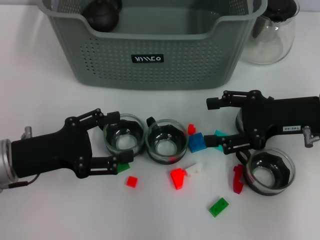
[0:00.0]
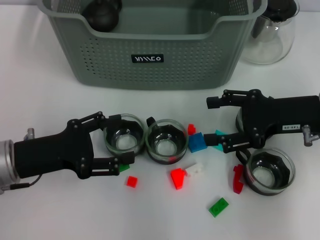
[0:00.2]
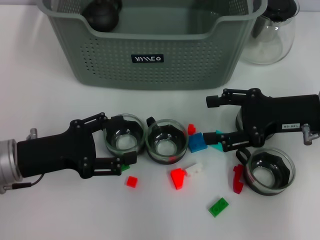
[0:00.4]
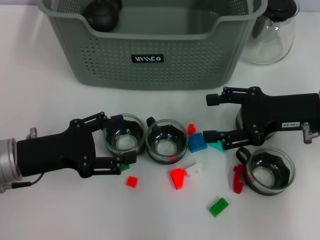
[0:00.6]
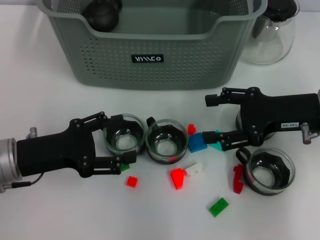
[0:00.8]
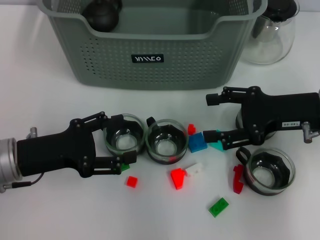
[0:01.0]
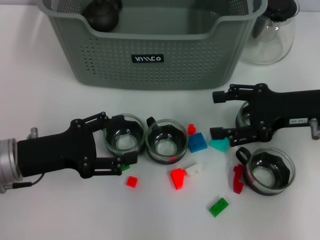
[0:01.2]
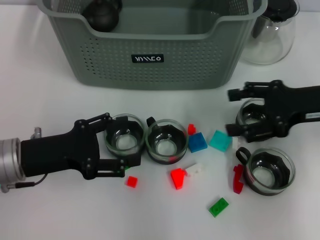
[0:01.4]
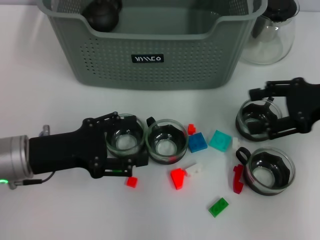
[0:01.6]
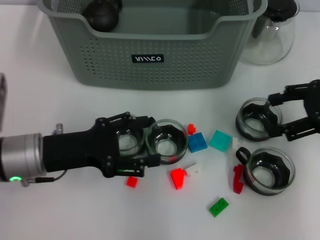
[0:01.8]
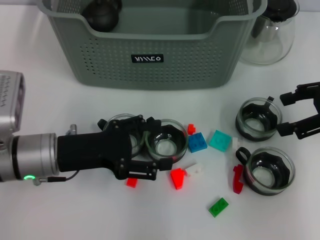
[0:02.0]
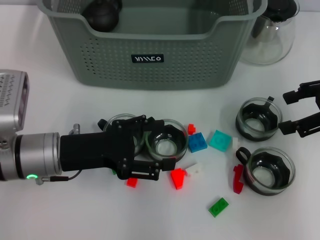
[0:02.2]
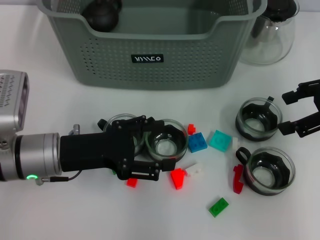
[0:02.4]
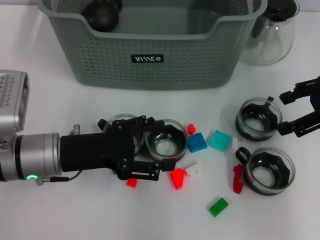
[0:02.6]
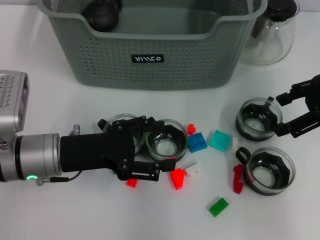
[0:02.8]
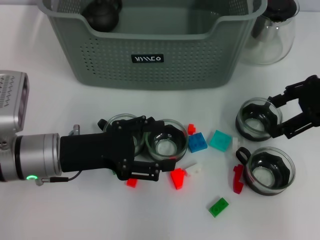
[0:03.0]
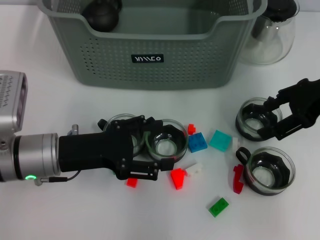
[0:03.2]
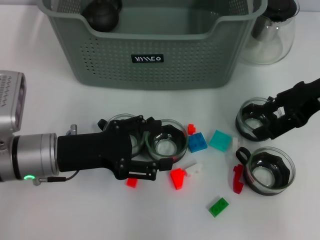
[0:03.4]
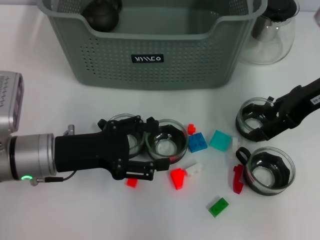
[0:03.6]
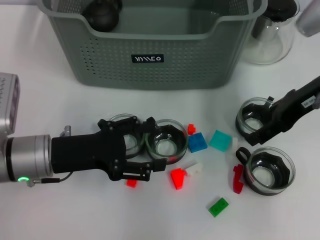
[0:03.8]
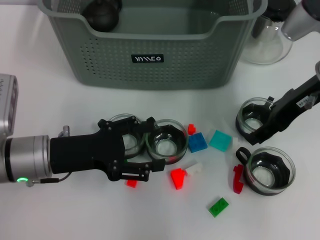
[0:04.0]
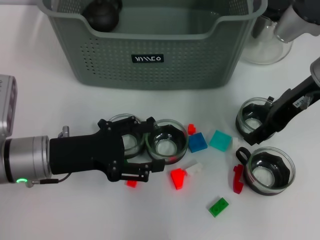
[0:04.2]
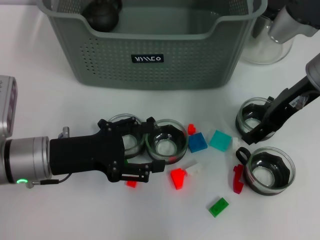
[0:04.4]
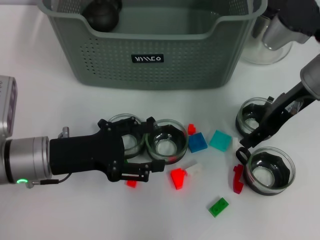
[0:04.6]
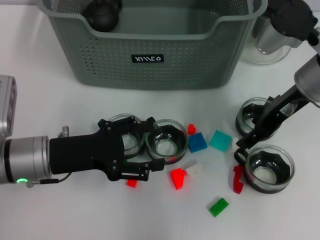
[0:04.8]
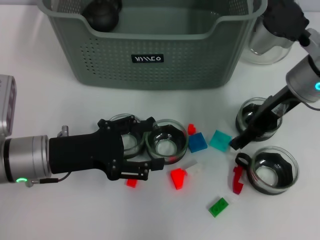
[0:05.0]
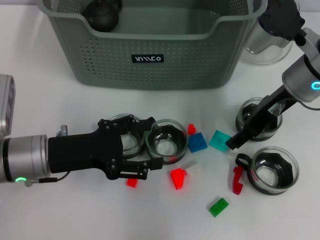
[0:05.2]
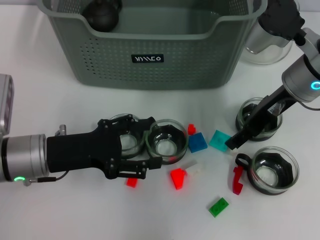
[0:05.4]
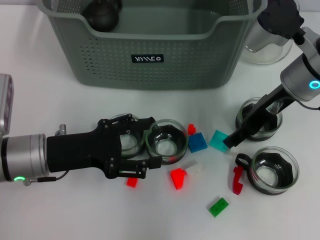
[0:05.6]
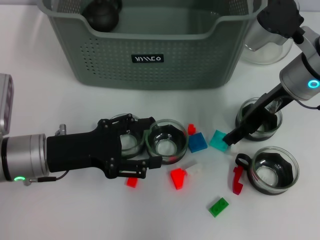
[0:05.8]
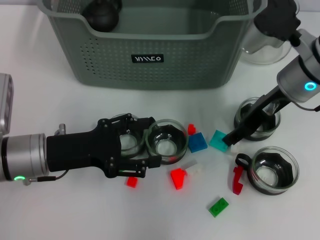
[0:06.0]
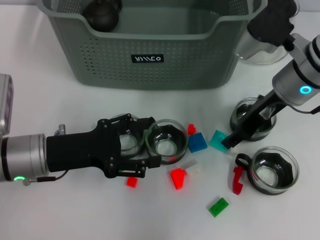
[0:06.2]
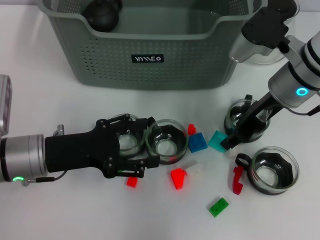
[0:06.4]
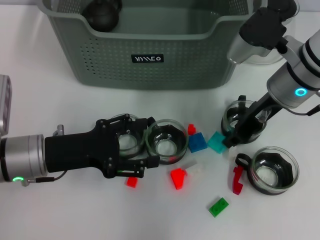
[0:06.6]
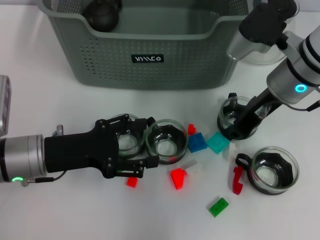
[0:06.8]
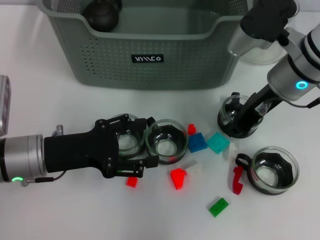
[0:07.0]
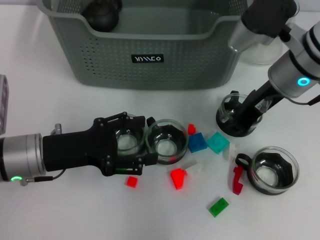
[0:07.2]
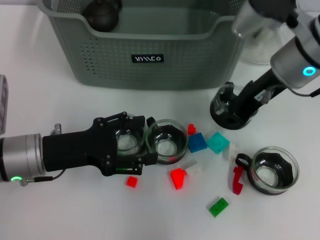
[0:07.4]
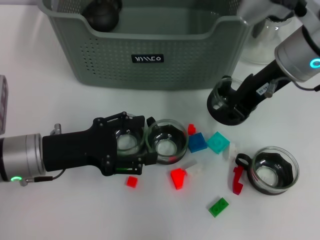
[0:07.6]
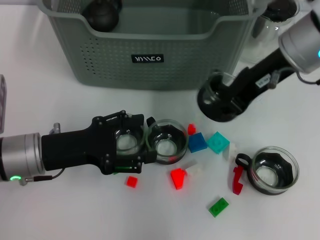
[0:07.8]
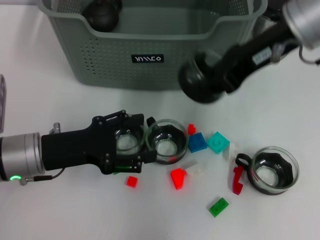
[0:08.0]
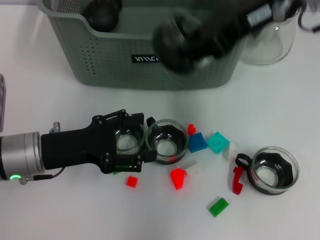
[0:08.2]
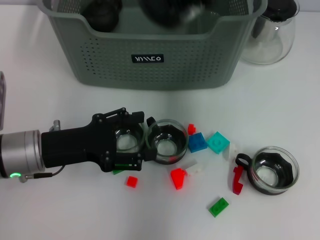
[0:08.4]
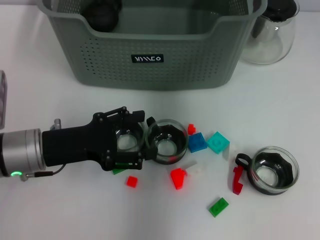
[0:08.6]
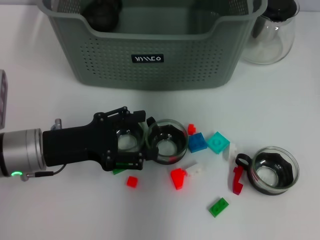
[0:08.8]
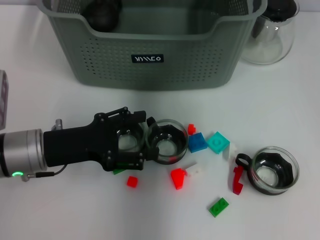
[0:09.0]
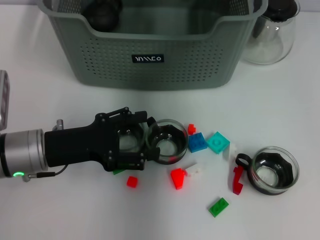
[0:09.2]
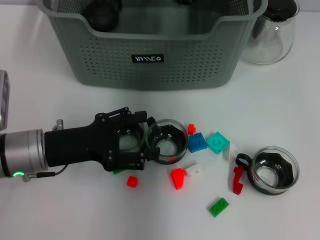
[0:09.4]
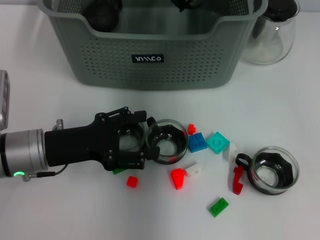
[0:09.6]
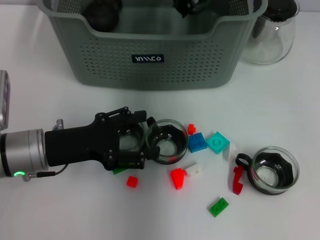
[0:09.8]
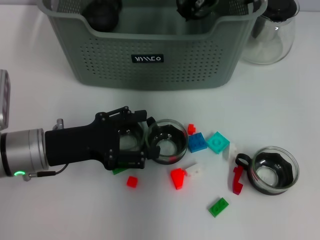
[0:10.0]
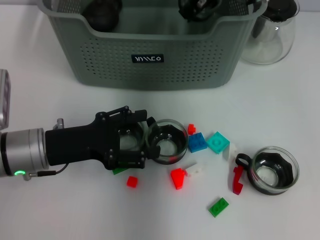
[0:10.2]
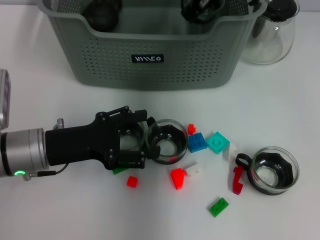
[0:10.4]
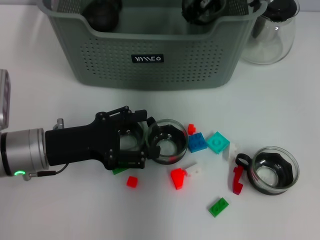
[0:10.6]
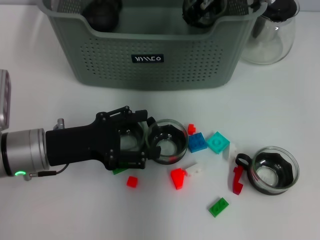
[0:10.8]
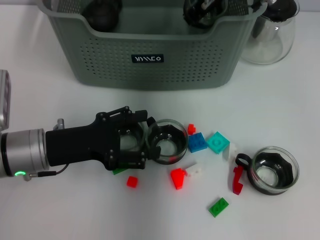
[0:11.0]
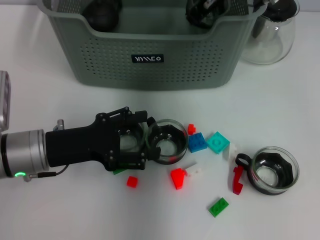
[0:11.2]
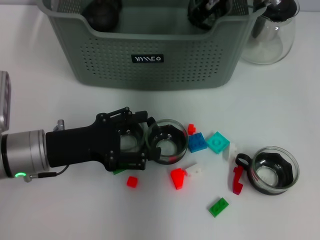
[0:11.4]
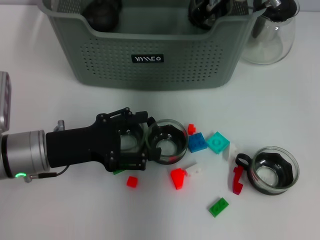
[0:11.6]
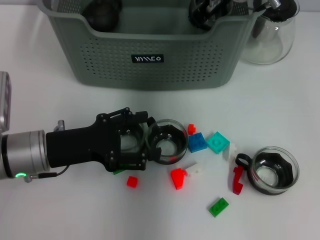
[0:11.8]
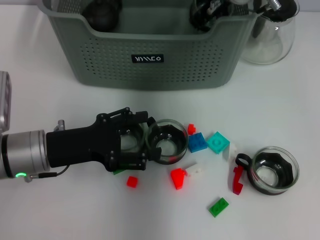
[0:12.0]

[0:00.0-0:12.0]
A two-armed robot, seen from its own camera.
Task of the whole recording: pick up the teacup on the table and place it into the storage bin, pick up the block on the table and place it into the storage bin.
Step, 0:00.0 to 0:06.8: Grasp the cup with right gripper.
0:00.0 to 0:01.6: The right gripper ends up roughly 5 cm from where it was.
0:03.0 to 0:04.4: The right gripper is displaced to the left by roughly 5 cm.
0:04.4 to 0:06.0: The grippers move only a little.
0:06.0 to 0:07.6: The right gripper moves upward, approximately 5 cm, and closes.
0:07.6 to 0:09.0: The right gripper shifts about 15 cm forward, upward and to the left.
0:09.0 to 0:10.4: The right gripper moves downward, roughly 5 cm.
0:10.4 to 0:12.0: The grippers stay close to where they were, moving slightly.

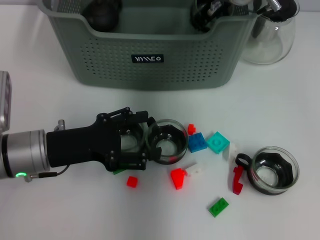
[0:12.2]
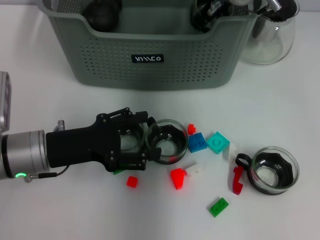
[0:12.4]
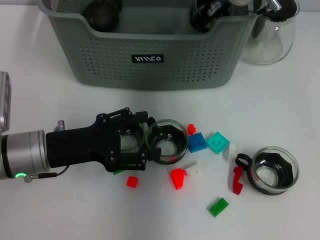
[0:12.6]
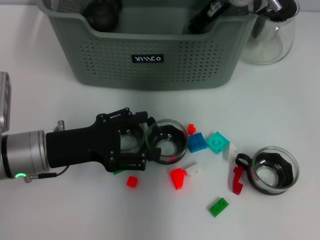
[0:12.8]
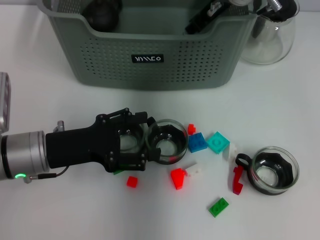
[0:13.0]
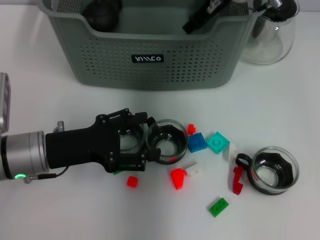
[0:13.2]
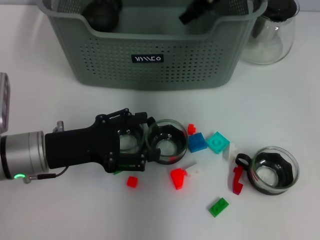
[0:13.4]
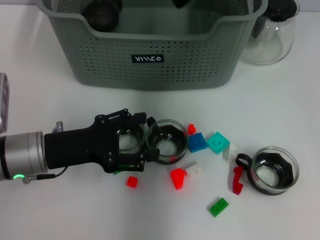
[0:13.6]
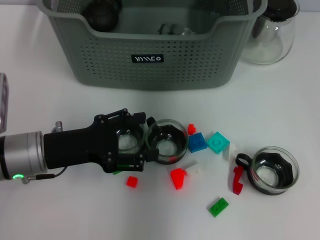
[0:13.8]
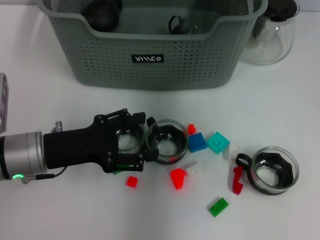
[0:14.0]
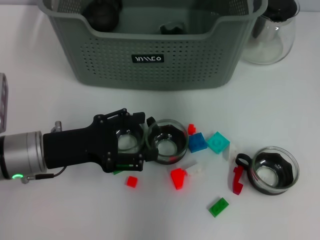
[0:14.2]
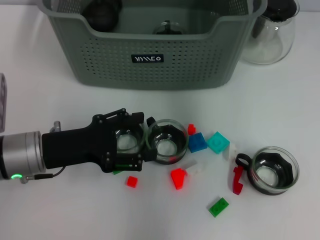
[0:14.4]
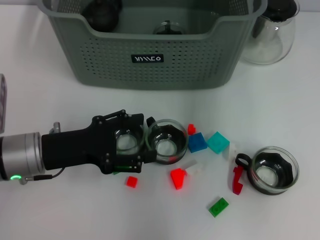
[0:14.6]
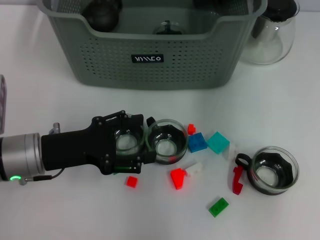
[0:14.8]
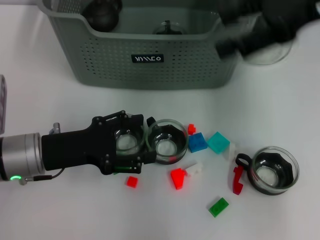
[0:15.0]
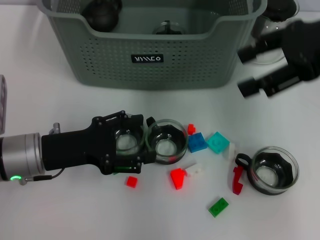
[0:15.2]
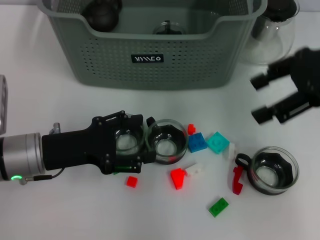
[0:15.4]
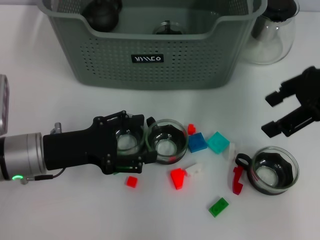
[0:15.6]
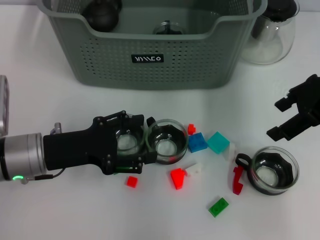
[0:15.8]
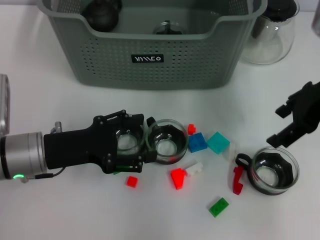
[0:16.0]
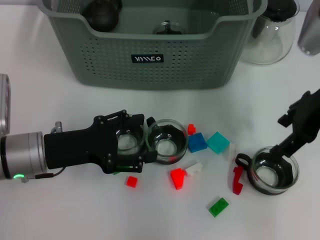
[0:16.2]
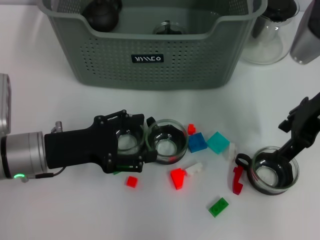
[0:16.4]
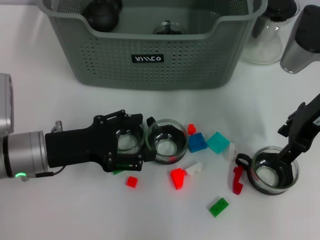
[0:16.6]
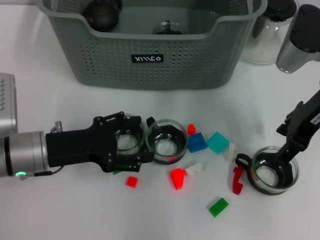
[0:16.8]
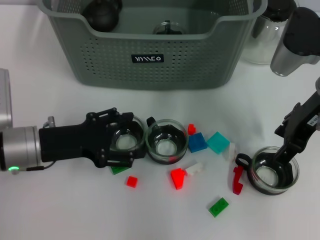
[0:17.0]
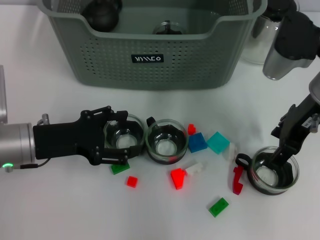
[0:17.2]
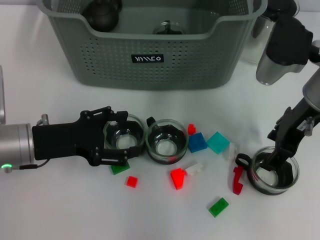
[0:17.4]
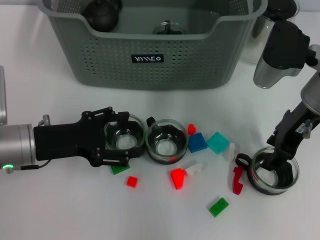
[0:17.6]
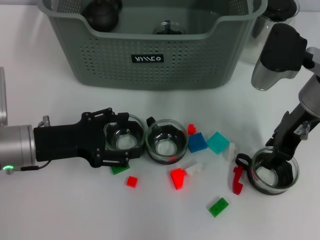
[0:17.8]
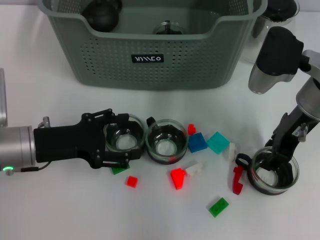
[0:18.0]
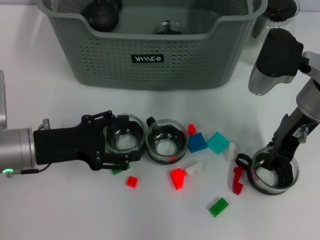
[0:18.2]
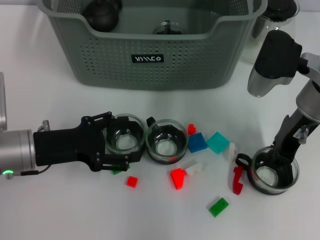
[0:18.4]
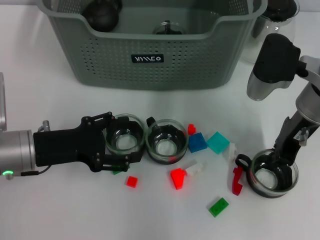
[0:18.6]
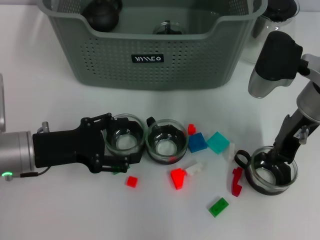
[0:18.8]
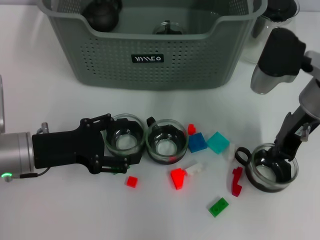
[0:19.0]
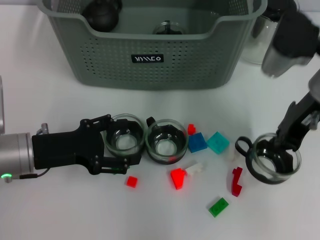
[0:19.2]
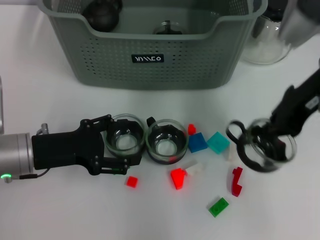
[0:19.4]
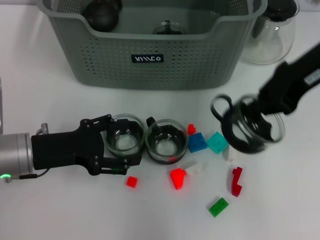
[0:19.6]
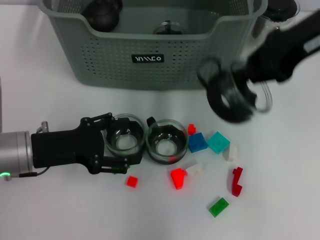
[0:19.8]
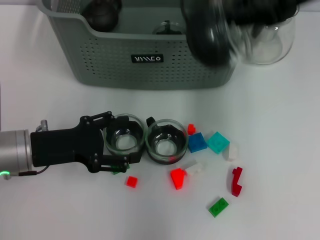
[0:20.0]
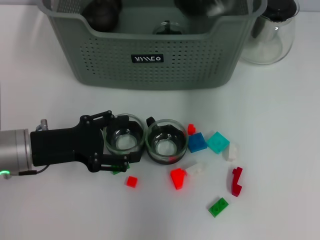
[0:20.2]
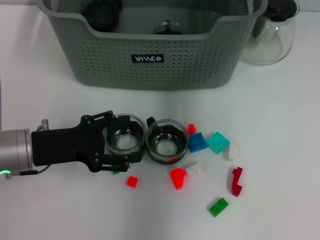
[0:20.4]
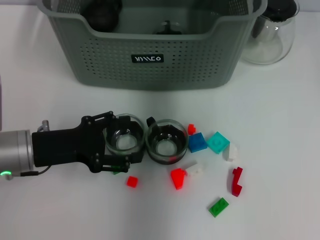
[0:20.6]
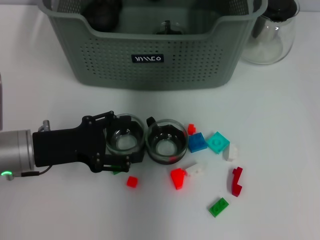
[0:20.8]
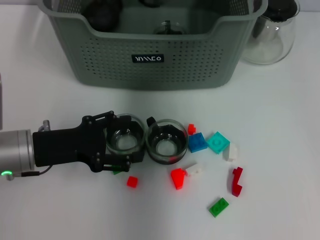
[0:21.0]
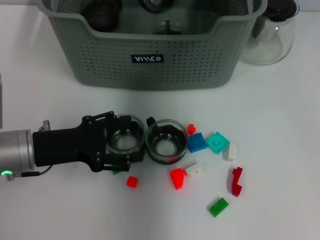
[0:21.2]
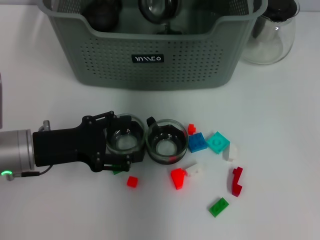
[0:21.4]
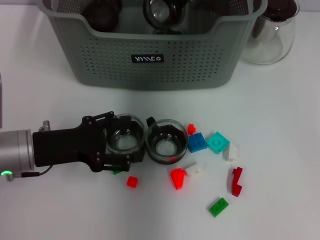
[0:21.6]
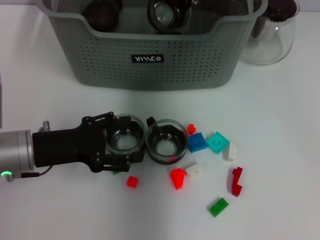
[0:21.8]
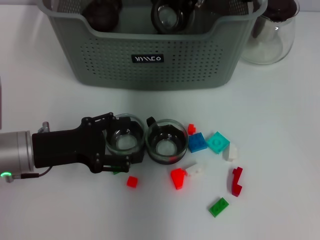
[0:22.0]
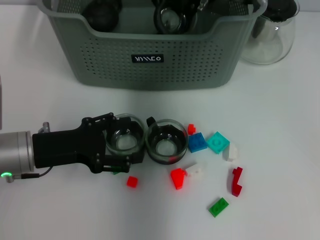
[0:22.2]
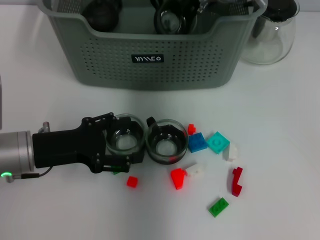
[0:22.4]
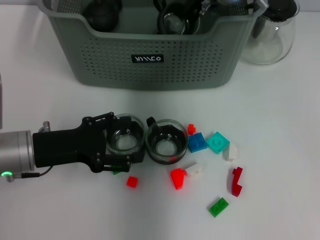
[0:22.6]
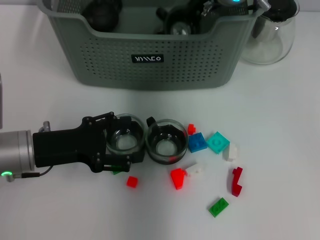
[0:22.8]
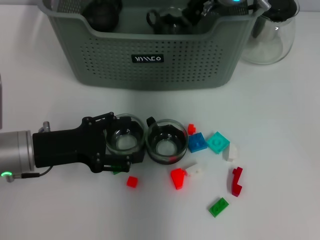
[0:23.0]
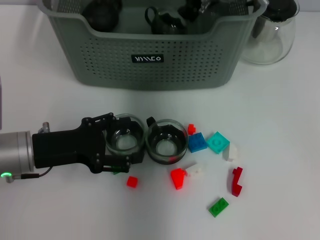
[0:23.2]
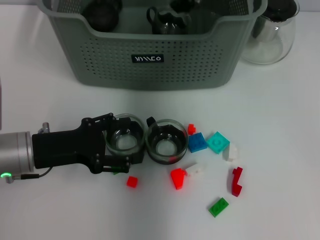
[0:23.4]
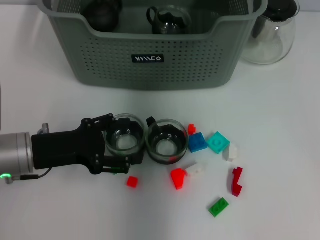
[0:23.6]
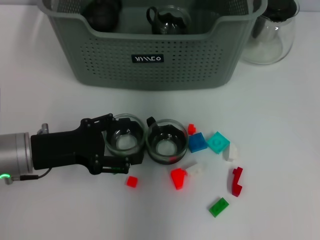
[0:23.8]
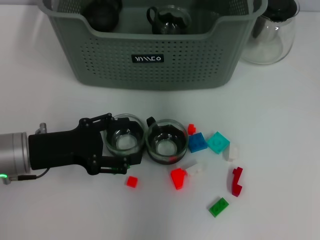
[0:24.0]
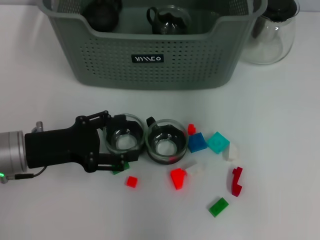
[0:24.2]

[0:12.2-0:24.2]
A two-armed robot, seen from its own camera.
Task of the whole recording: pick up the teacup on the table and place it into the storage bin, pick up the block on the table and place it into the storage bin.
Step, 0:13.4 to 0:18.8: Grasp the cup with right gripper.
Step, 0:19.0 to 0:23.0: Place the cup in the storage box with right gripper.
0:12.2 to 0:13.8: The right gripper goes roughly 5 cm upward, and opens.
0:13.8 to 0:15.2: The right gripper shifts approximately 20 cm to the right and backward.
0:15.2 to 0:16.6: The right gripper heads downward, covering about 10 cm.
0:16.6 to 0:18.2: The right gripper closes up.
0:18.2 to 0:19.8: The right gripper travels upward by roughly 15 cm, and closes up.
0:19.8 to 0:21.2: The right gripper heads to the left and forward, covering about 20 cm.
0:21.2 to 0:22.6: There are only small adjustments of the grippers.
0:22.6 to 0:24.2: The right gripper travels upward, to the right and backward by approximately 15 cm, and opens its fingers.
